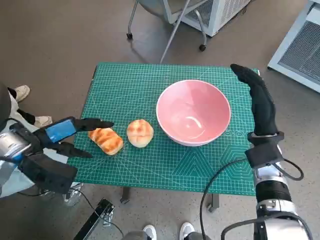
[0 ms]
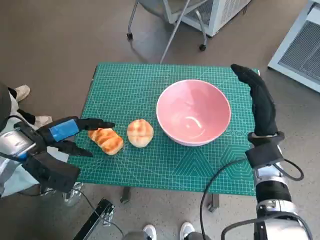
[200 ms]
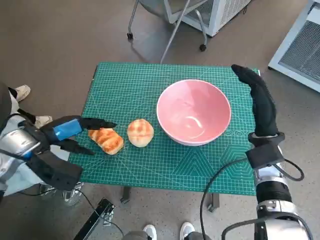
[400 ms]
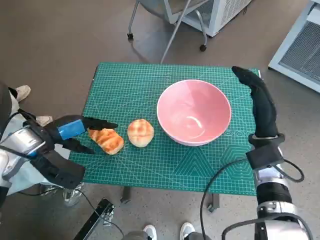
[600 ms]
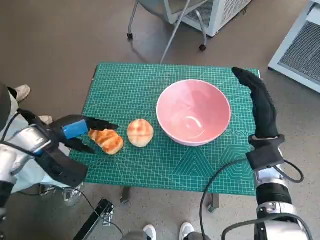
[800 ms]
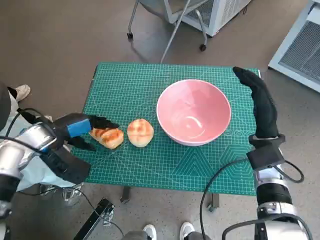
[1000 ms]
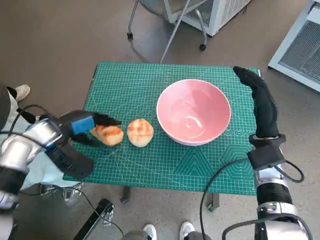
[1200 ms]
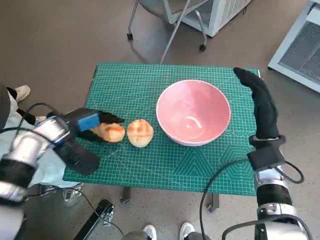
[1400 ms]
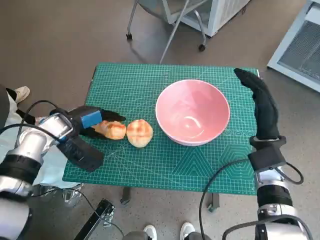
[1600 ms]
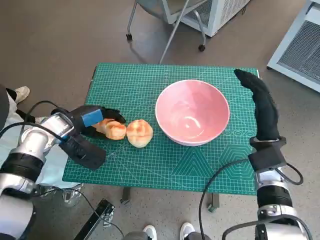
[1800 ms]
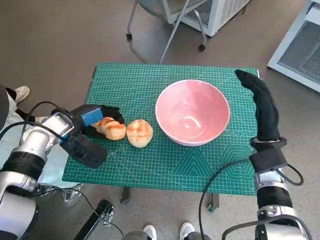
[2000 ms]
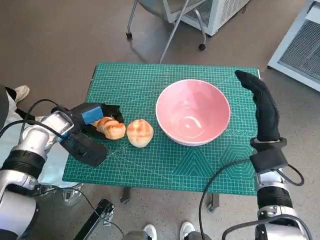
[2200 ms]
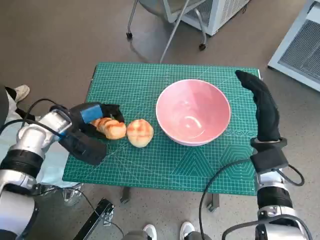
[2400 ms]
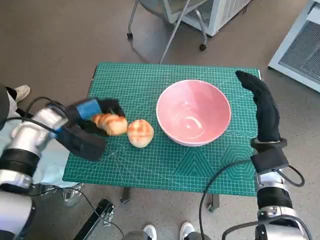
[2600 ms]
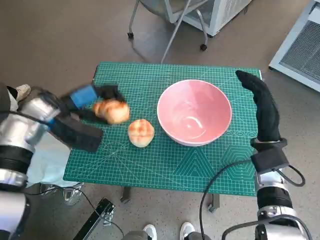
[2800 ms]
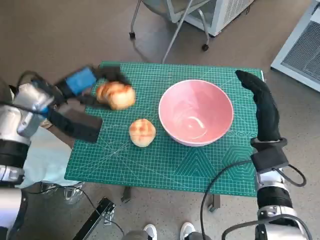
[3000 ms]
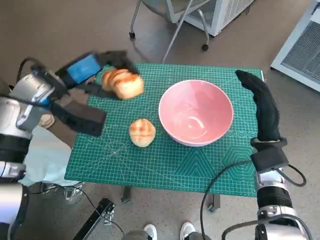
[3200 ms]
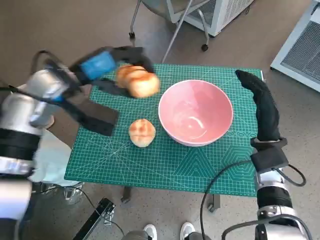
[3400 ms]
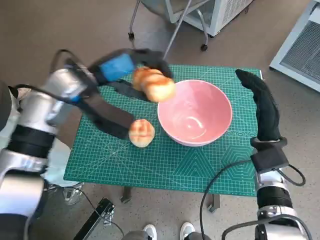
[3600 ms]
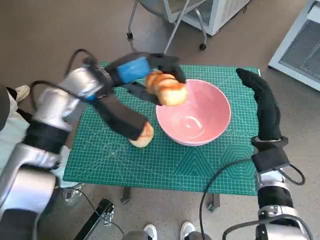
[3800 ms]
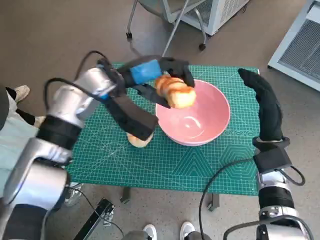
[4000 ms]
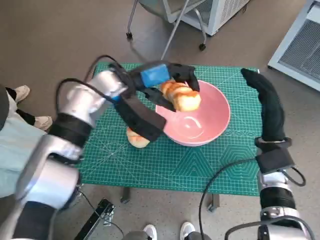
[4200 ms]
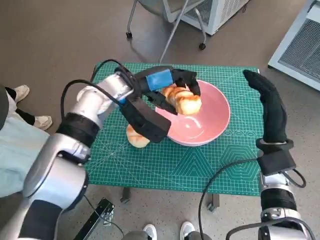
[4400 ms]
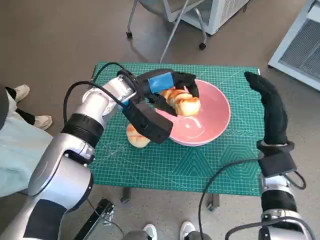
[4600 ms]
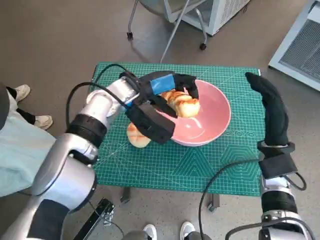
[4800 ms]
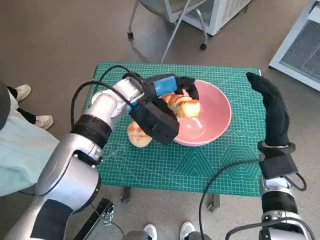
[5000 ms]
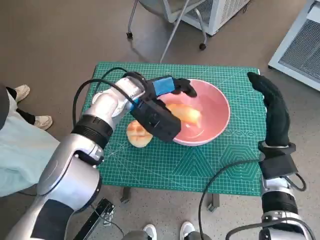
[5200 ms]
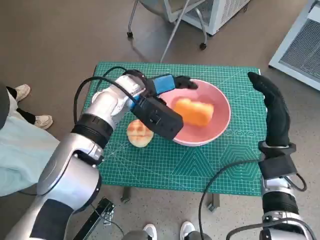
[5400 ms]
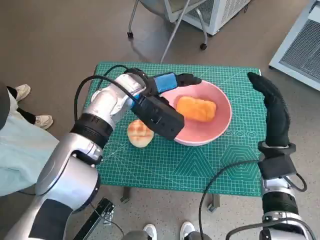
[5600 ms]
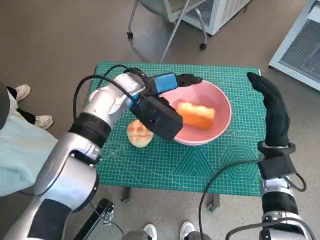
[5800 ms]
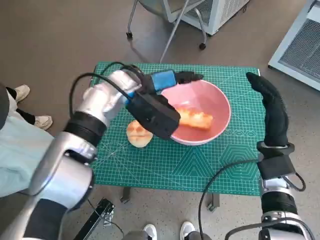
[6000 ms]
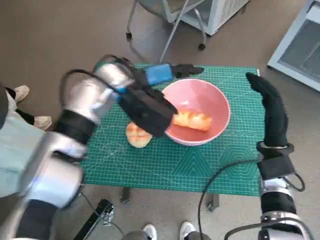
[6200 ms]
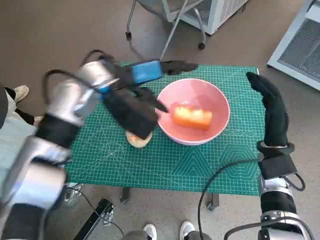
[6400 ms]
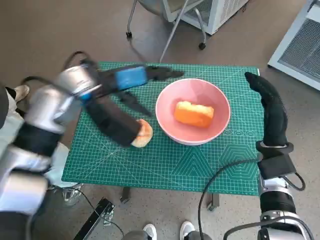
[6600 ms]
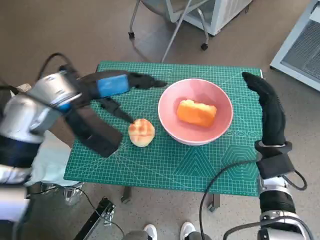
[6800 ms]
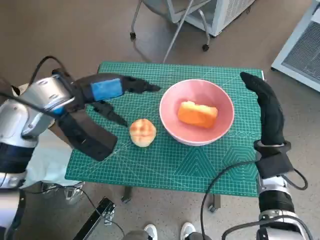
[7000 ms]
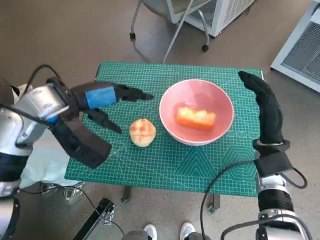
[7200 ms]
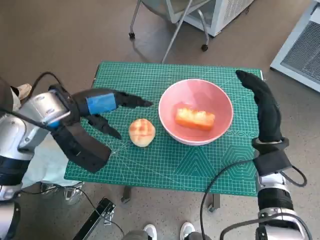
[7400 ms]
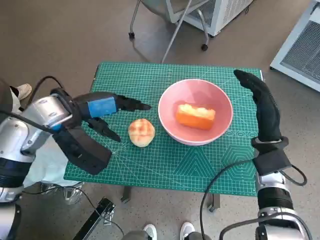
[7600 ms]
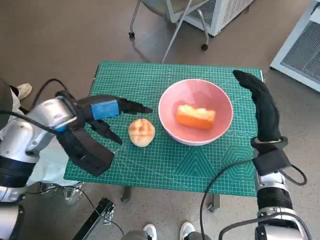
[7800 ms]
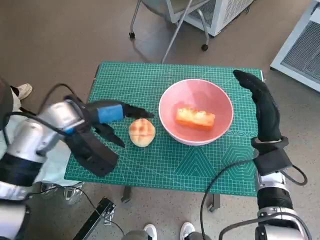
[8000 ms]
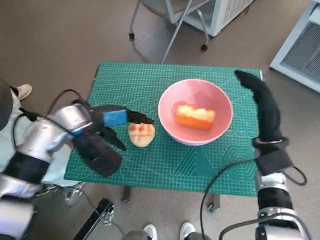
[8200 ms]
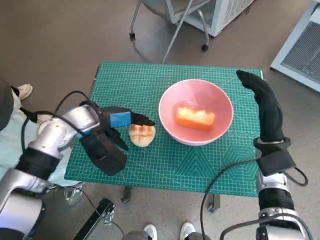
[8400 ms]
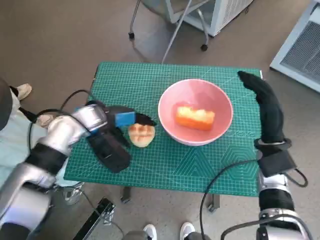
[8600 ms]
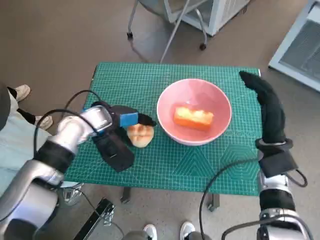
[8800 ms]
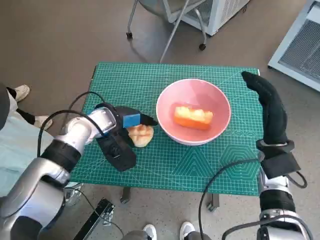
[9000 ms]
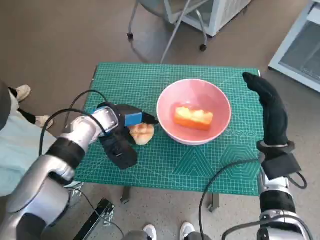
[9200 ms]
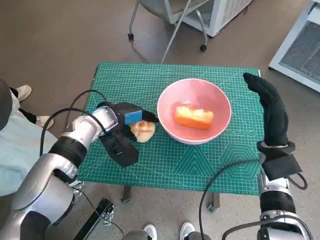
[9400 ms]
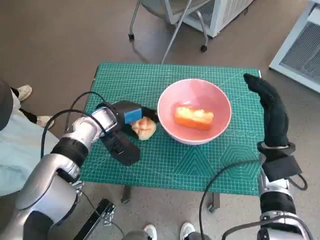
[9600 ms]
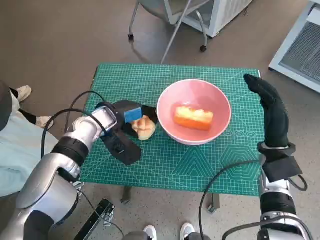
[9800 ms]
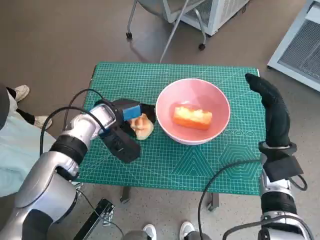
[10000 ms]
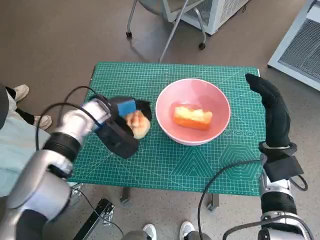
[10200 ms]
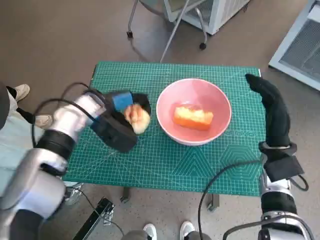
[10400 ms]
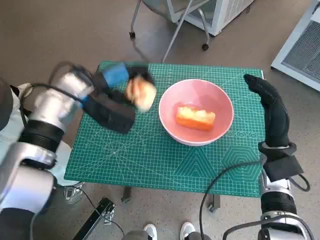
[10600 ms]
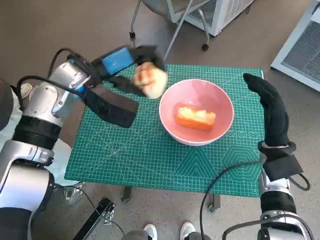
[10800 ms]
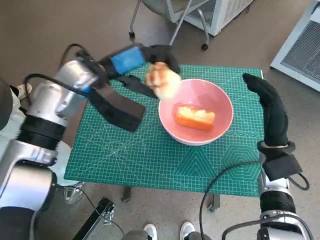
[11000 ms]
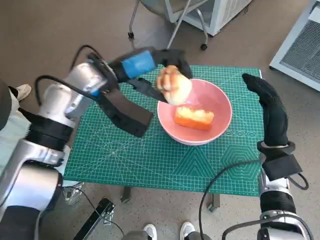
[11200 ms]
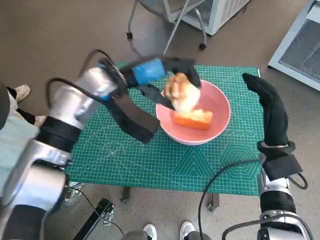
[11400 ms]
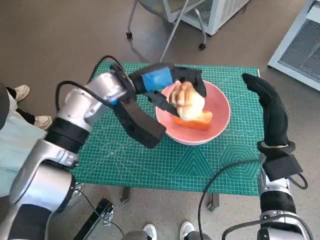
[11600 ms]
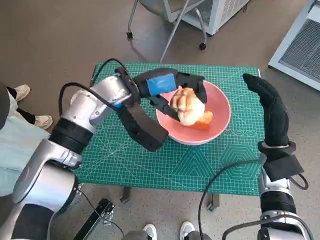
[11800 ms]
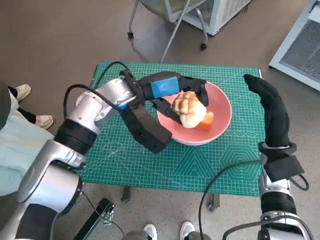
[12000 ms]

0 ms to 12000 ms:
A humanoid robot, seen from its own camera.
Task of the whole recording: Push the bowl to the center of the table and put the bread into the bowl.
Step, 1400 ms to 5400 ms: Place the long bread in pink bowl with left hand.
Step, 5600 ms to 8800 ms: Grasp the round bread with left hand.
0 ms to 1600 ms: The left hand heads forward, covering about 5 cm.
1600 ms to 3000 ms: The left hand is displaced upward by some 5 cm.
3000 ms to 4400 ms: The left hand shifts approximately 15 cm to the right.
6000 ms to 7600 ms: The left hand goes roughly 15 cm to the left and backward.
7600 ms to 9000 ms: The left hand travels downward by roughly 10 cm.
9000 ms to 10400 ms: The hands make only small movements.
10400 ms to 12000 ms: The left hand shifts roughly 10 cm to the right and upward.

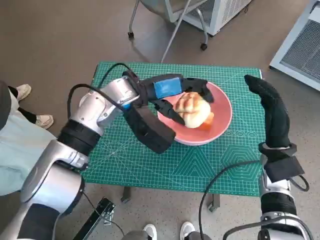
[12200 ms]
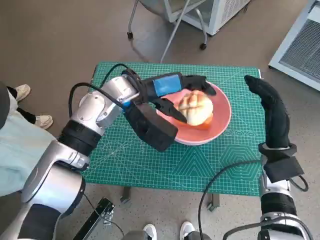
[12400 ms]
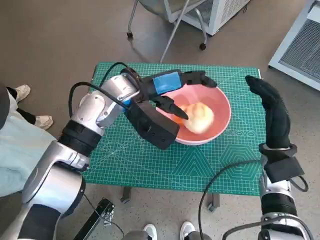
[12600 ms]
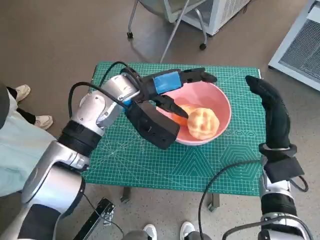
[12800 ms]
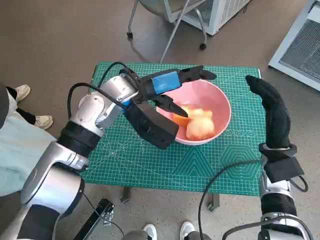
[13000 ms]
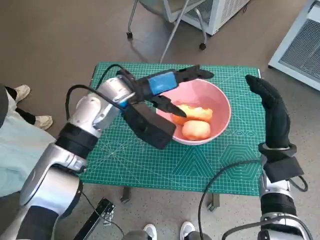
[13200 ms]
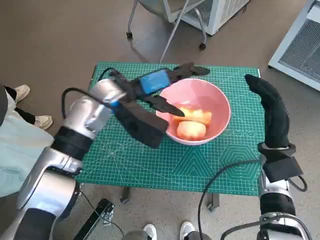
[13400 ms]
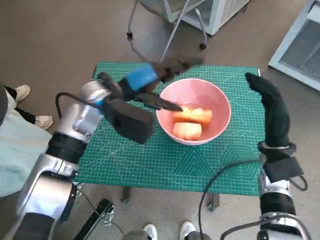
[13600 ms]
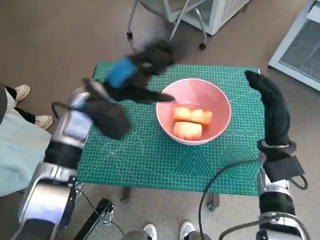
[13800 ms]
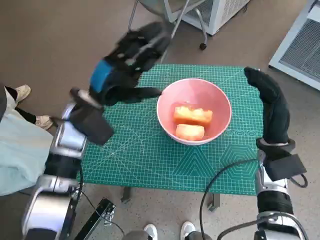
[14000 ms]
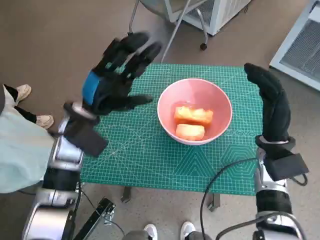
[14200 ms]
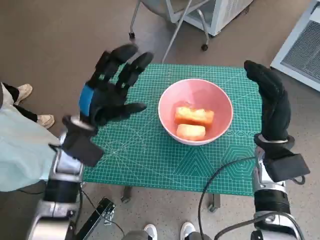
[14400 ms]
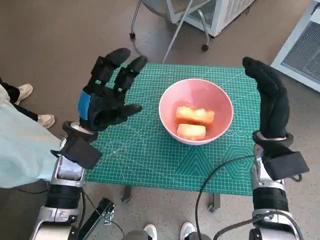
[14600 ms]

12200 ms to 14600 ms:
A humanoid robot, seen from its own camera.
Task of the whole recording: Push the bowl to the center of the table and put the bread into the bowl.
12200 ms to 13400 ms: There are only small adjustments of the hands.
13400 ms to 14600 ms: The left hand heads to the left, downward and backward, covering about 10 cm.

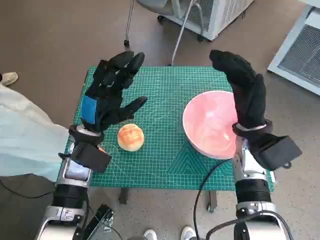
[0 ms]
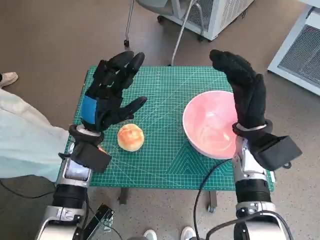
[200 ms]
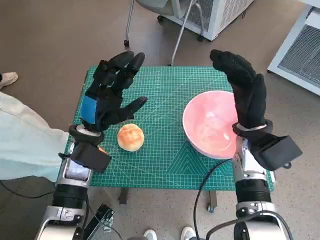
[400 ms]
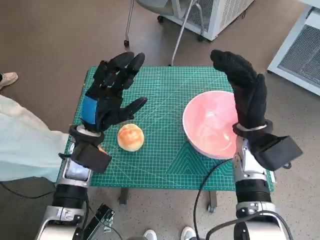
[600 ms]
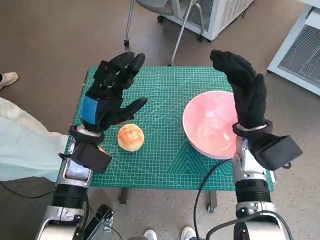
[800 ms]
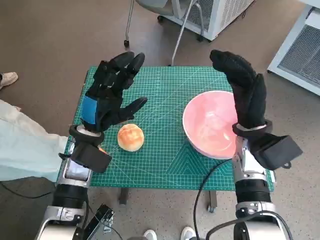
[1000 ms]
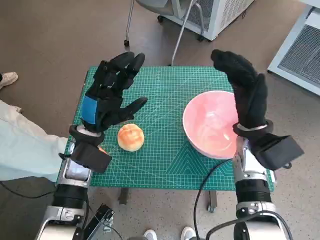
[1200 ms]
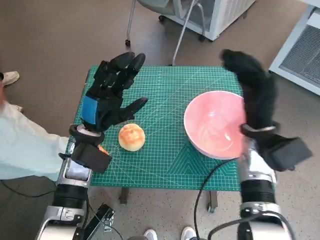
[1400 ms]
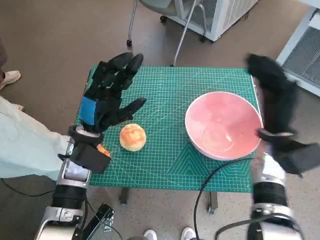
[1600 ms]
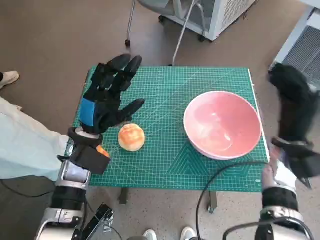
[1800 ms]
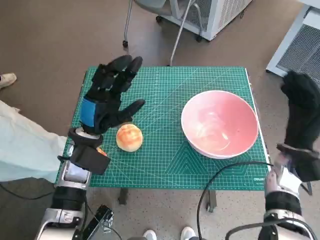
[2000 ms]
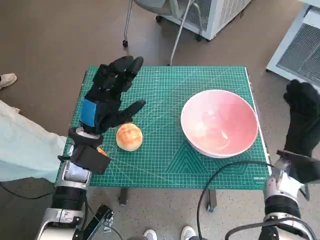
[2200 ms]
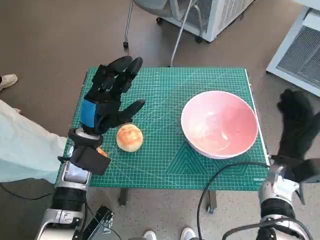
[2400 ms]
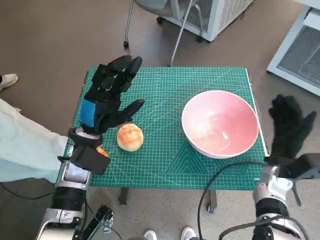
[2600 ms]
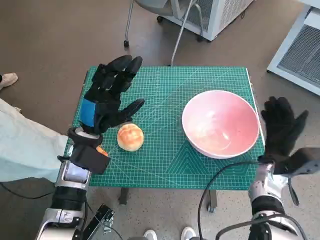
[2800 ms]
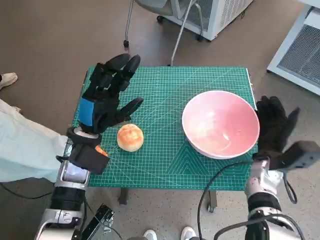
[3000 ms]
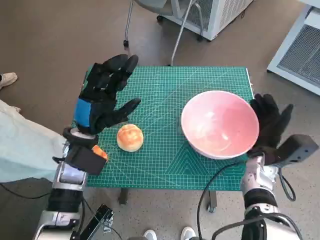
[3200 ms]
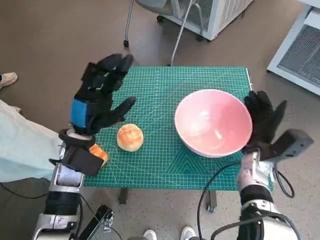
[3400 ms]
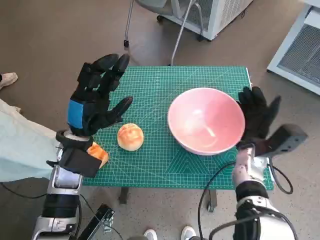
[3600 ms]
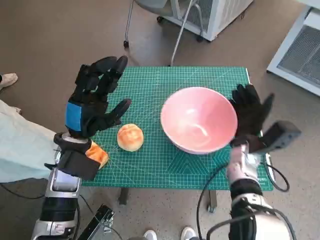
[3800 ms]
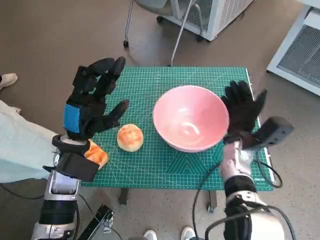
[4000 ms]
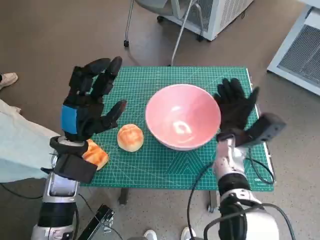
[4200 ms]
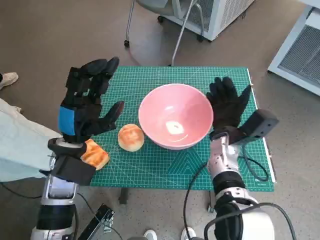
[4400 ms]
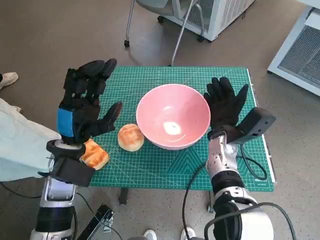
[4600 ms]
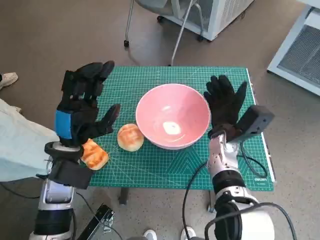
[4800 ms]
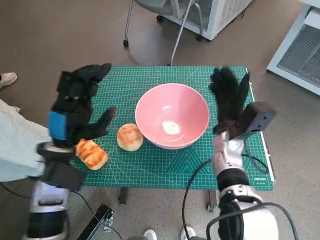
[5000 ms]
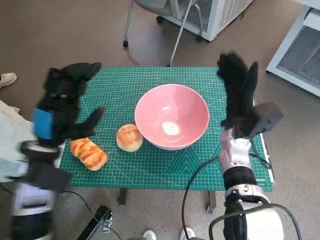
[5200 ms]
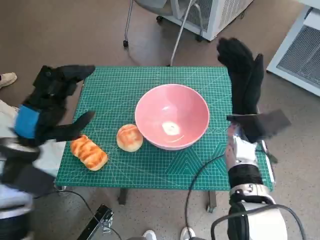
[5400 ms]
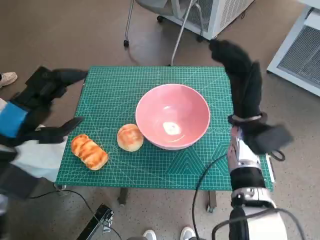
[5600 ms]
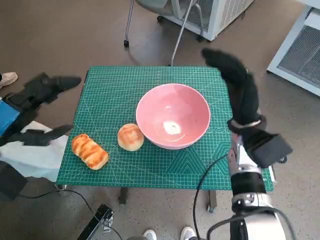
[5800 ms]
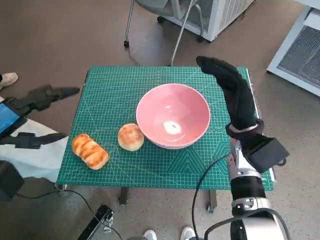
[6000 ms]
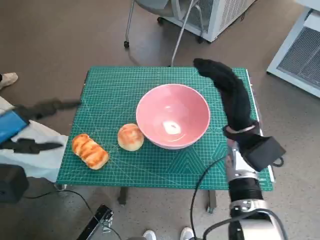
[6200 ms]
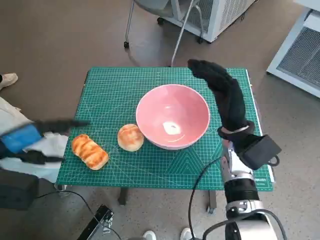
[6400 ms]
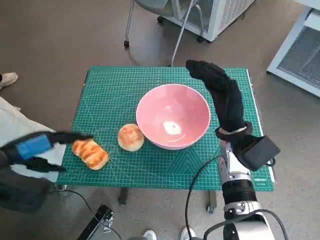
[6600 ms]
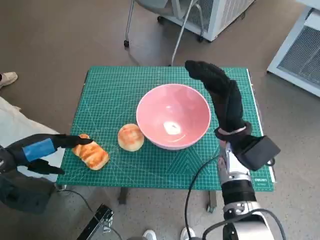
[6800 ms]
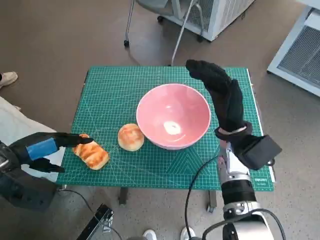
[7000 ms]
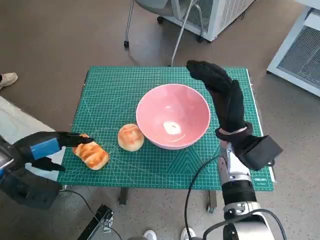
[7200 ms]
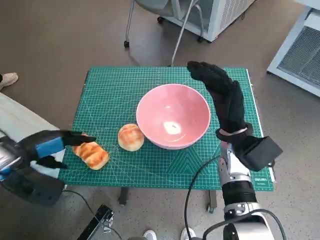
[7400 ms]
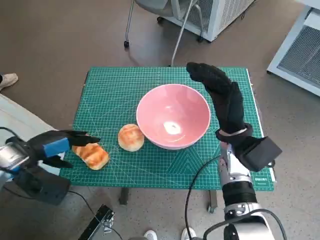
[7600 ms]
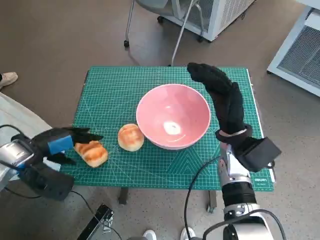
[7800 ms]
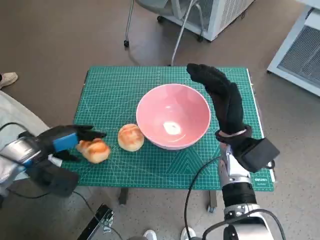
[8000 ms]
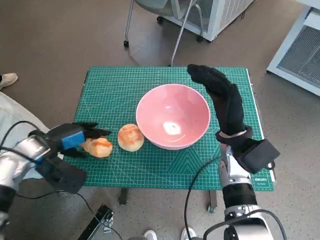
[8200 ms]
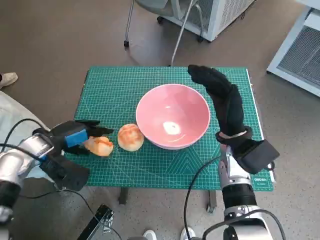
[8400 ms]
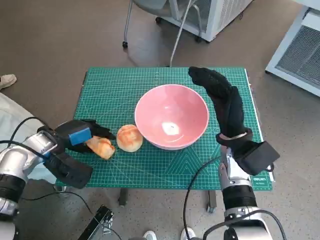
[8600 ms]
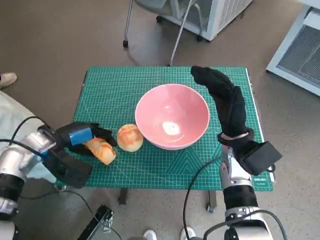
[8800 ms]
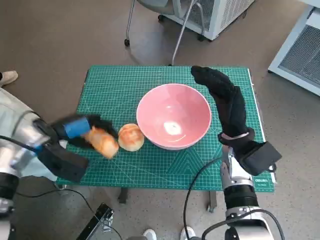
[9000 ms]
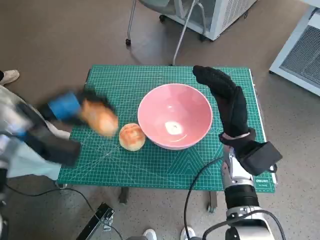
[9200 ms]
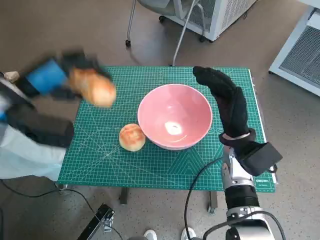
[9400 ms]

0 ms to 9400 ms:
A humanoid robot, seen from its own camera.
Task of the whole recording: Push the bowl to the center of the table and put the bread into the bowl.
Step, 0 ms to 5000 ms: Move the pink bowl to the center of table with right hand.
Step, 5200 ms to 8400 ms: Grasp the long bread with left hand.
1600 ms to 3200 ms: The right hand travels downward by roughly 10 cm.
3200 ms to 4800 ms: The right hand travels to the left by roughly 10 cm.
4800 ms to 6200 ms: The right hand shifts about 5 cm upward, while the left hand heads to the left and upward, covering some 15 cm.
6200 ms to 7800 ms: The left hand travels downward by roughly 10 cm.
7800 ms to 9400 ms: The left hand travels upward by about 10 cm.
